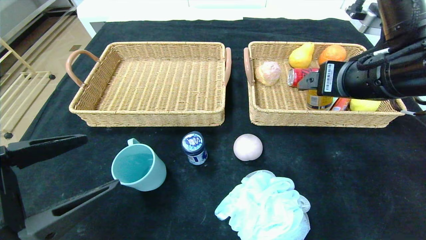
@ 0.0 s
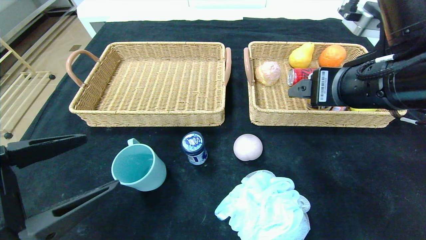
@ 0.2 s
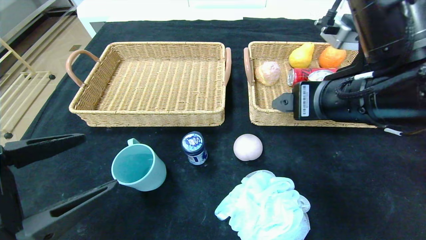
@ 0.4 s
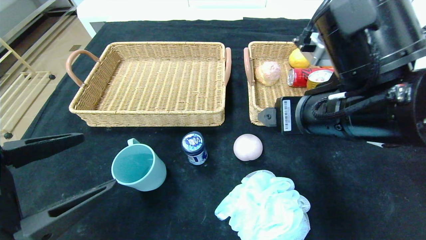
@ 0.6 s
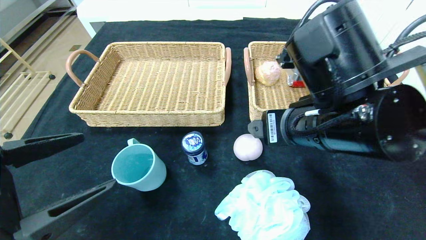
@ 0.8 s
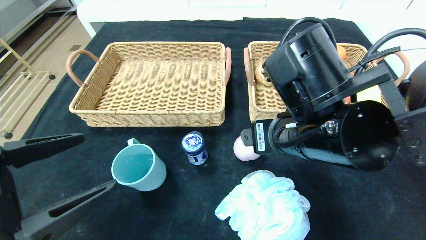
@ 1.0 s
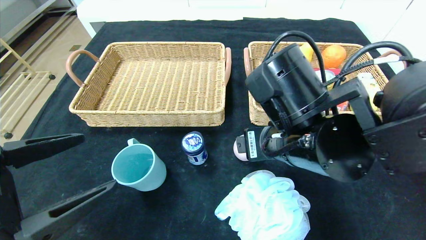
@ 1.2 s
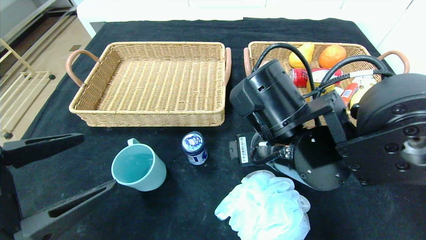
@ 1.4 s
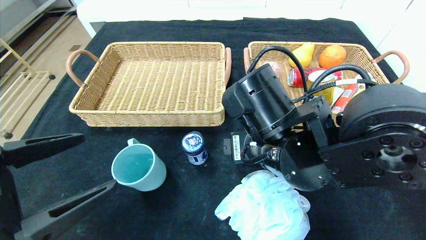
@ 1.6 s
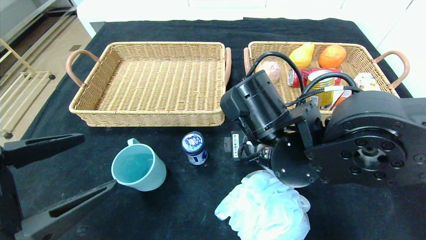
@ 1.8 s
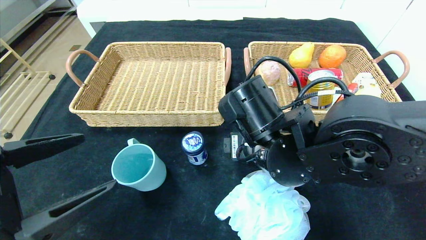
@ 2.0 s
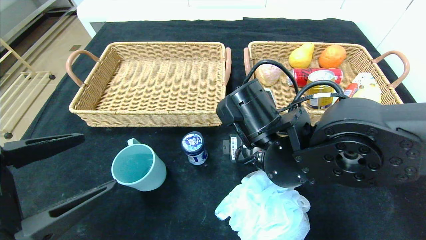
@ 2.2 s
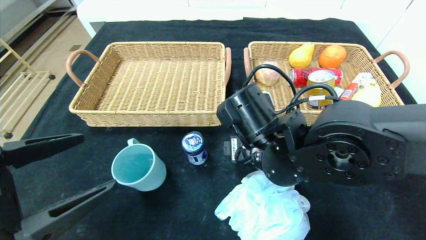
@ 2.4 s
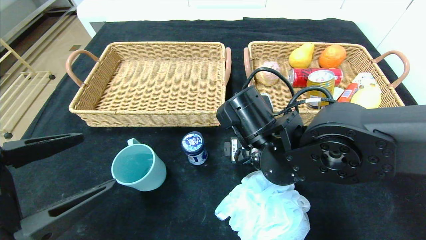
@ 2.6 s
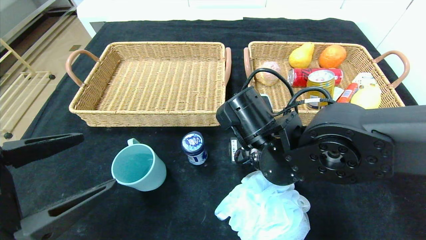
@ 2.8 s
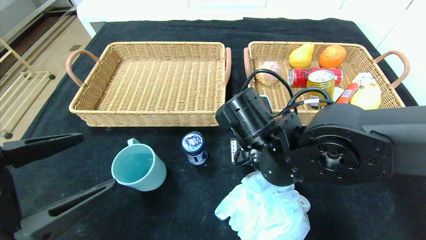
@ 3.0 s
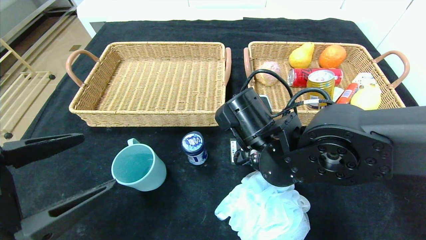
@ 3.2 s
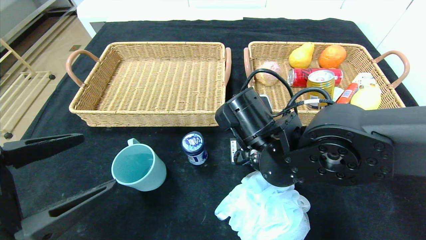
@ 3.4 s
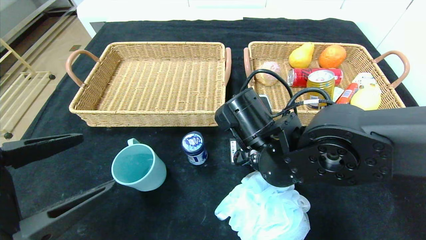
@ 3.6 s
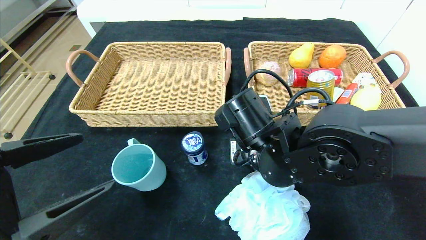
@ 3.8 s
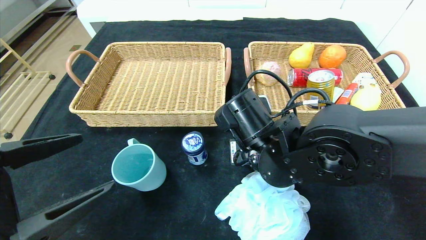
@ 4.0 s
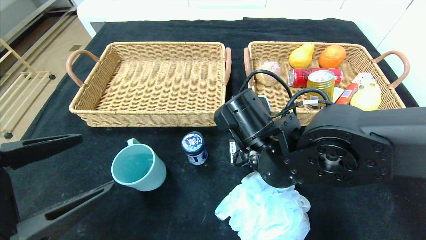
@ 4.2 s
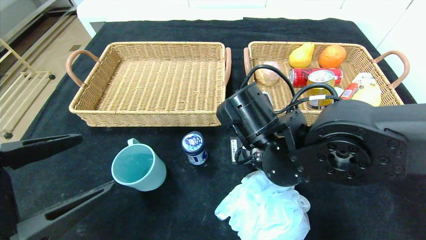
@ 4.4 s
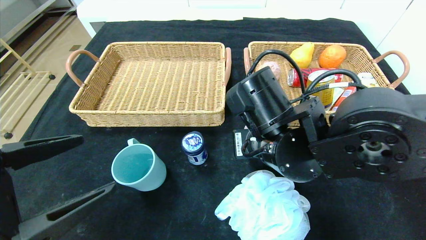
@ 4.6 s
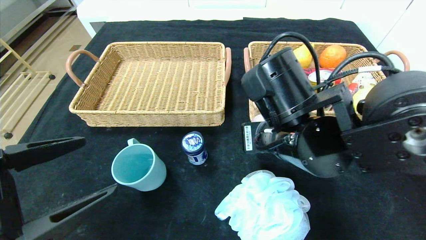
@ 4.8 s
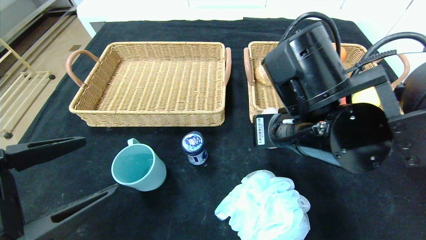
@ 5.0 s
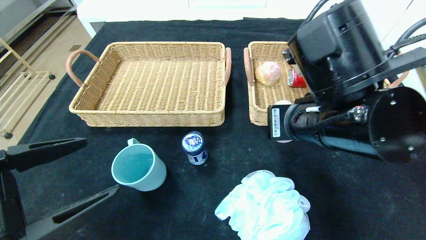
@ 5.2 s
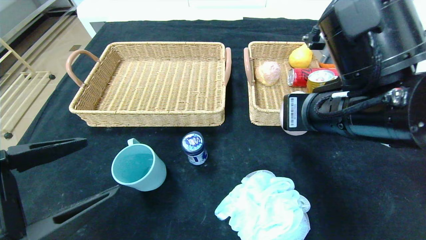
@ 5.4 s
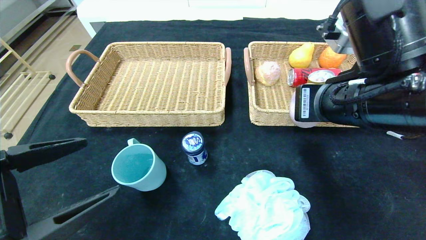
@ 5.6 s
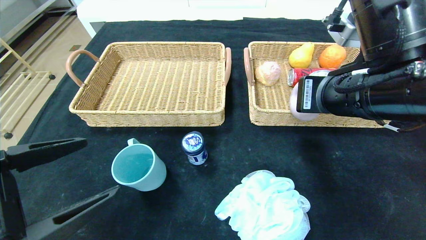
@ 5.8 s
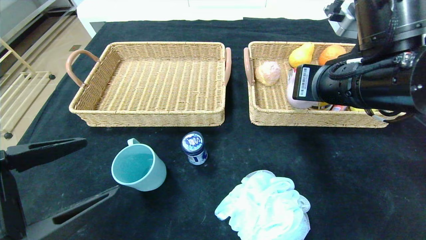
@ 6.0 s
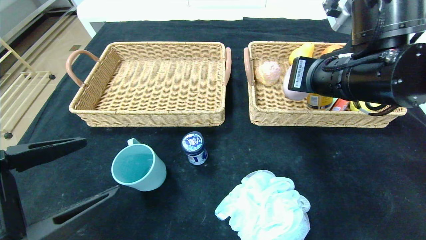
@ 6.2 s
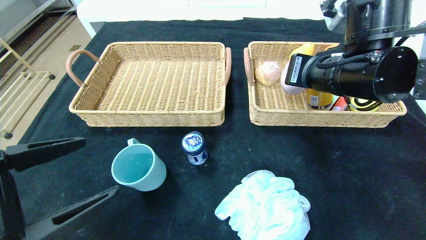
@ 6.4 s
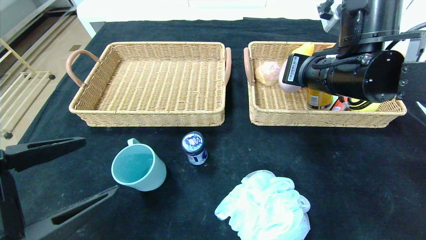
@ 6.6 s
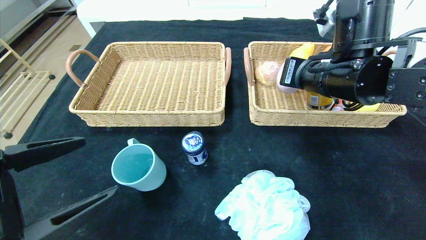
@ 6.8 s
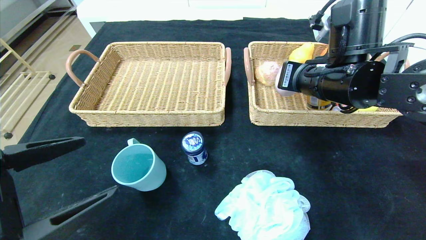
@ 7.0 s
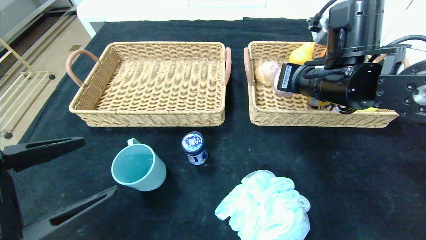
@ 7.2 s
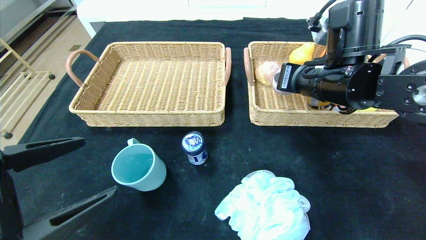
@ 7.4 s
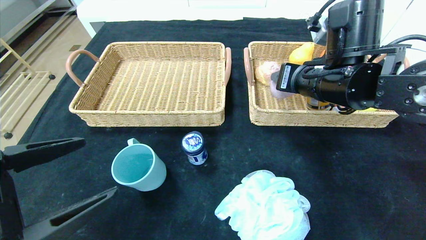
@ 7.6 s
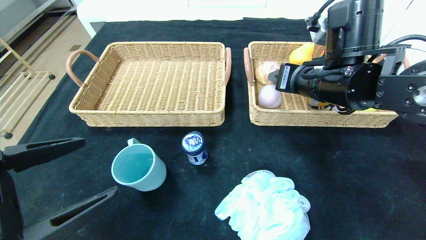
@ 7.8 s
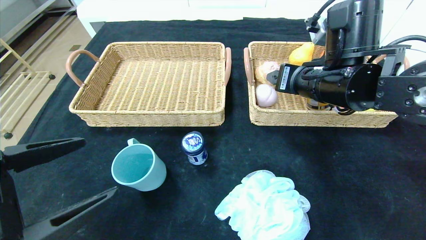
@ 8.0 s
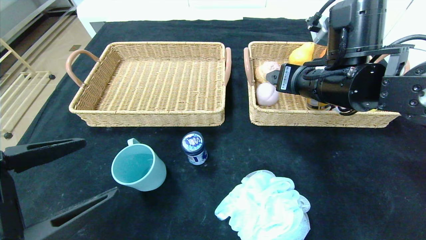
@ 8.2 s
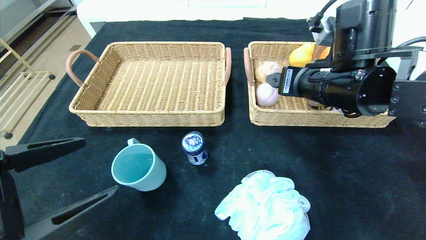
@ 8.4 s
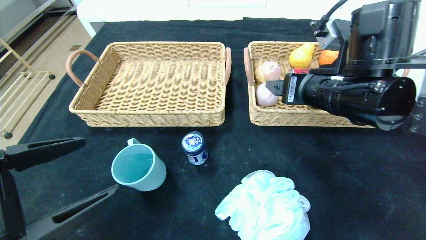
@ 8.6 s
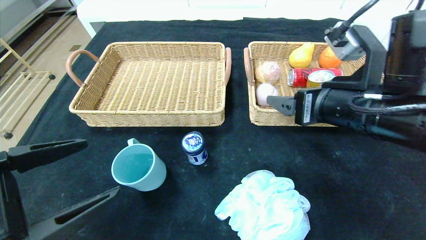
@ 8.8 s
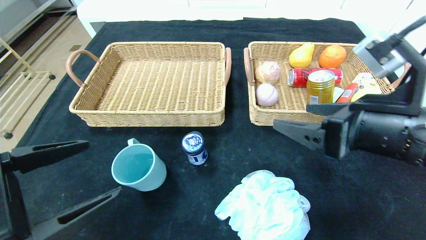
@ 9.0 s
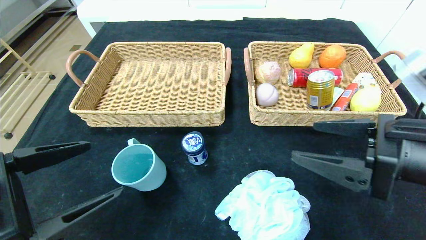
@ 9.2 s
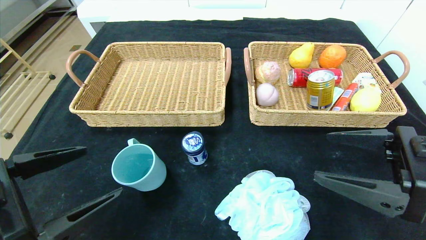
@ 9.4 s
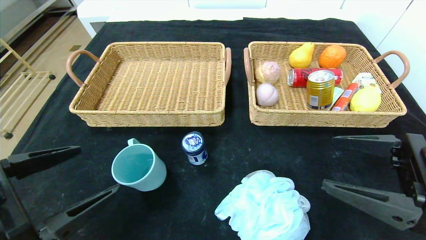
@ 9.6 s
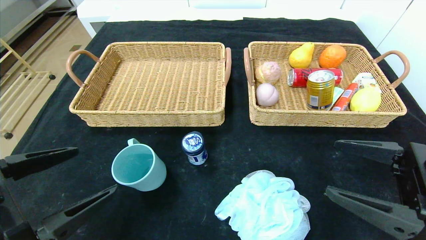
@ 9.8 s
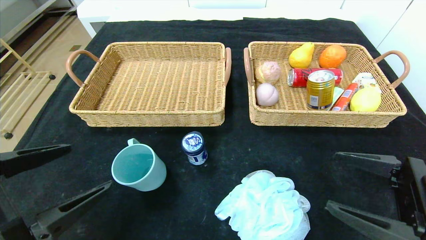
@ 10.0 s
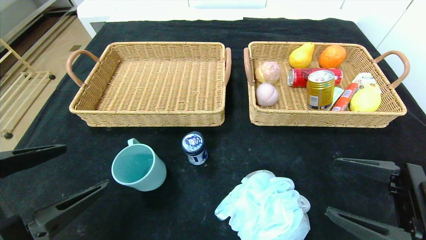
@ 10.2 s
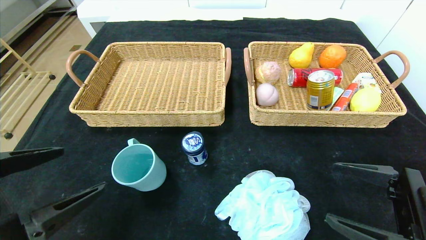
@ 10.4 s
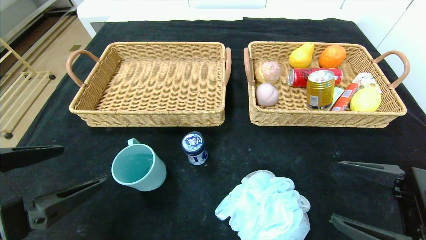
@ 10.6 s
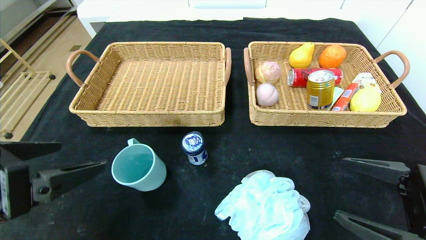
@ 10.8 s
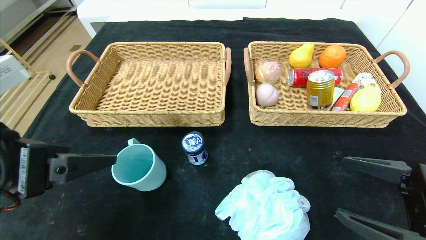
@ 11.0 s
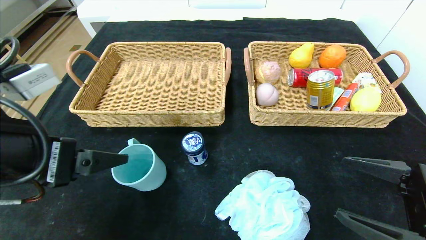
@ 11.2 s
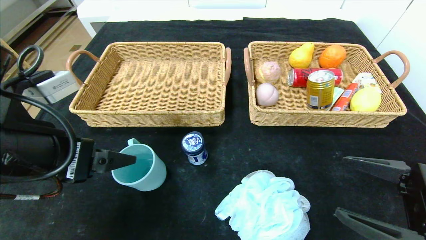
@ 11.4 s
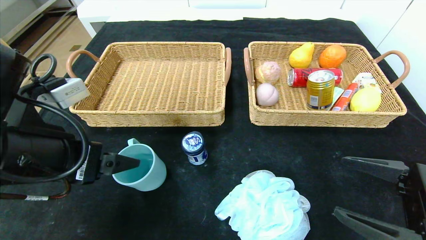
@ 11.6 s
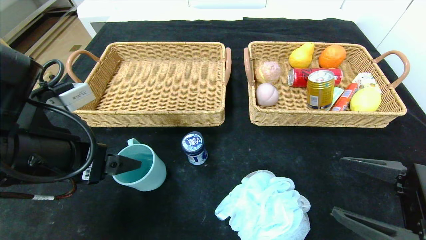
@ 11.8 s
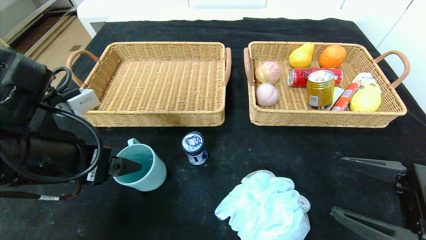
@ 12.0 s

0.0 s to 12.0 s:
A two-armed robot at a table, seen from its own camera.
Step, 0.0 to 7.6 s: Grasp the peach and put it in the right basket.
0.0 to 1.6 s: The right gripper is displaced to the left and downward by some 15 cm.
1.6 to 3.0 s: The right gripper closes up.
3.0 to 4.4 s: The right gripper closes its fingers.
4.4 to 6.0 s: The right gripper travels upward and to the right by roughly 15 cm.
6.0 to 7.6 s: The right gripper travels forward by some 5 cm, and opens up.
7.6 to 9.0 s: The right gripper travels backward by some 10 cm.
9.0 to 10.4 s: The right gripper goes some 10 cm downward, to the right and backward.
10.4 to 12.0 s: The left gripper shifts some 10 cm forward.

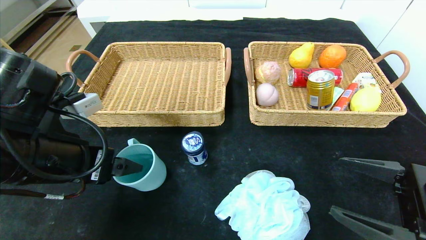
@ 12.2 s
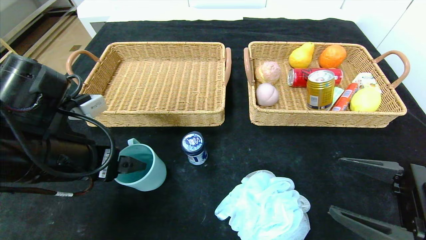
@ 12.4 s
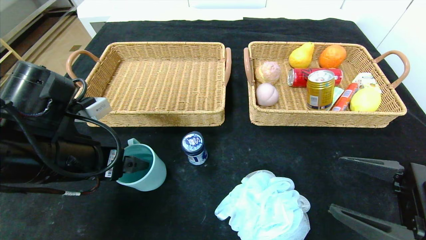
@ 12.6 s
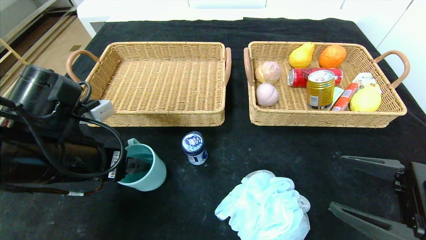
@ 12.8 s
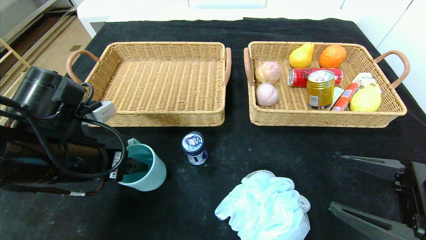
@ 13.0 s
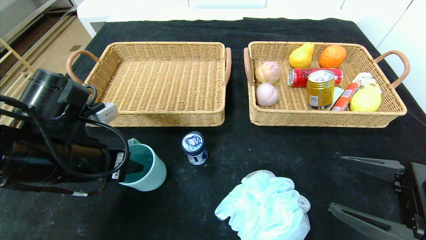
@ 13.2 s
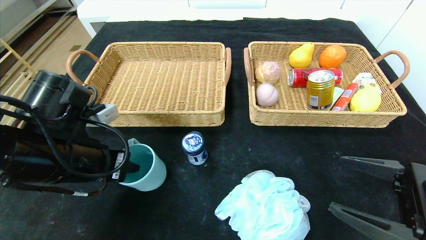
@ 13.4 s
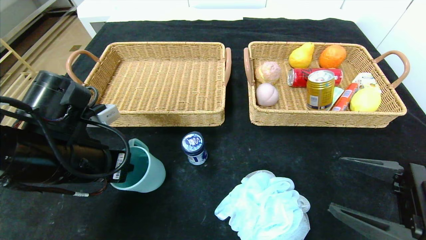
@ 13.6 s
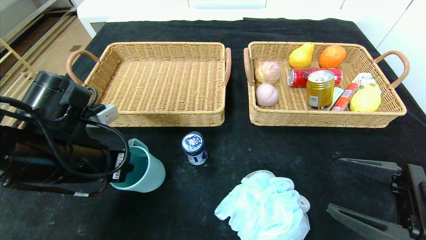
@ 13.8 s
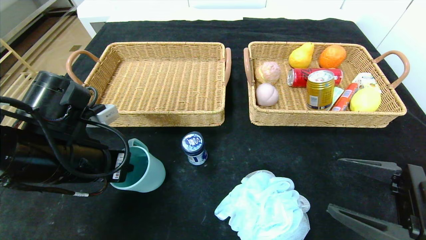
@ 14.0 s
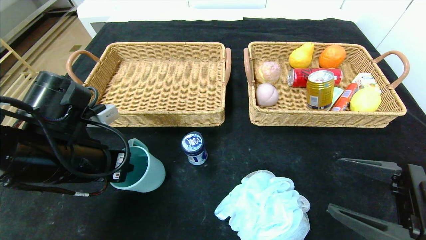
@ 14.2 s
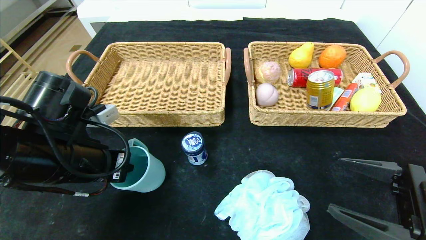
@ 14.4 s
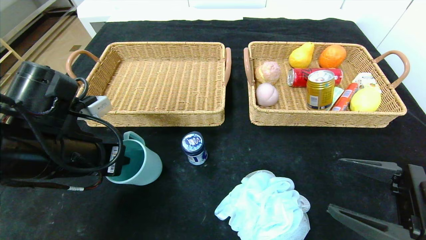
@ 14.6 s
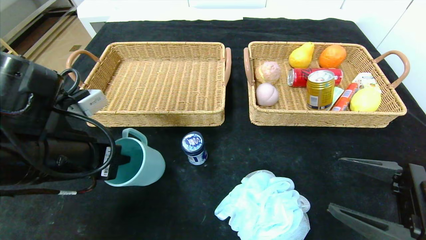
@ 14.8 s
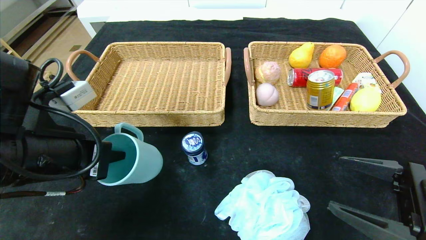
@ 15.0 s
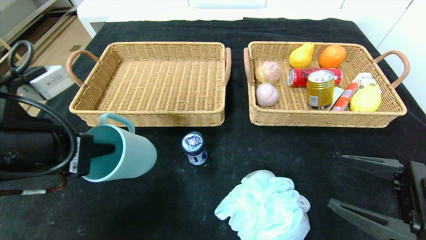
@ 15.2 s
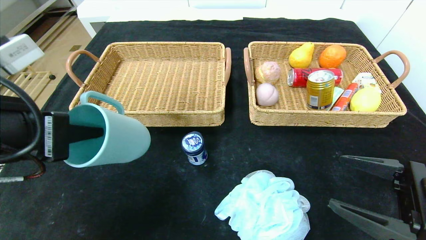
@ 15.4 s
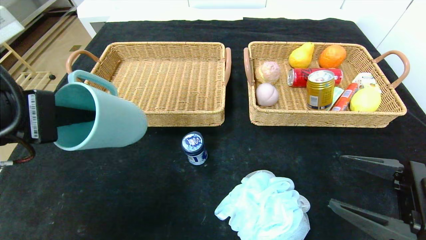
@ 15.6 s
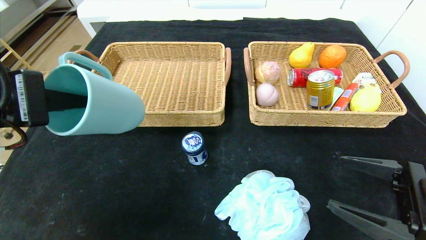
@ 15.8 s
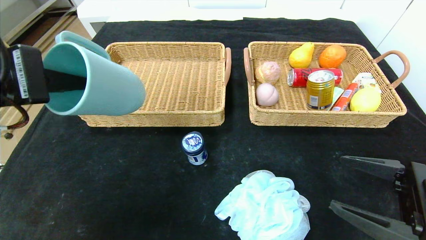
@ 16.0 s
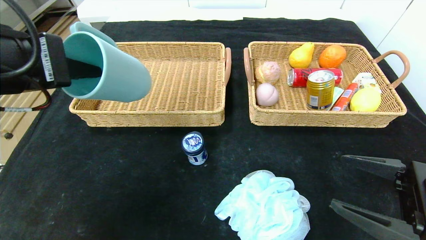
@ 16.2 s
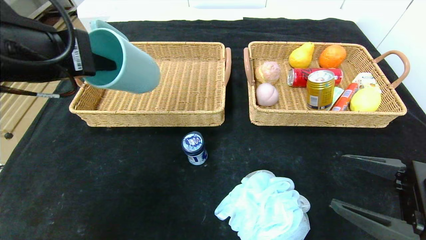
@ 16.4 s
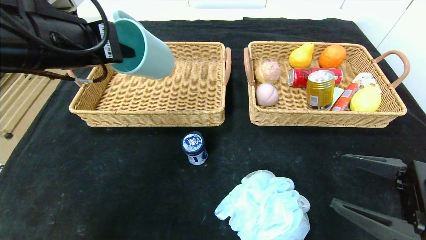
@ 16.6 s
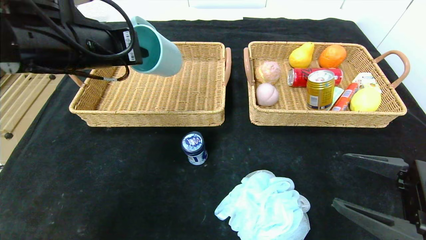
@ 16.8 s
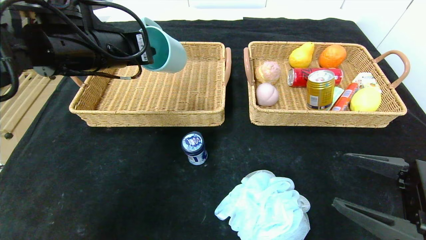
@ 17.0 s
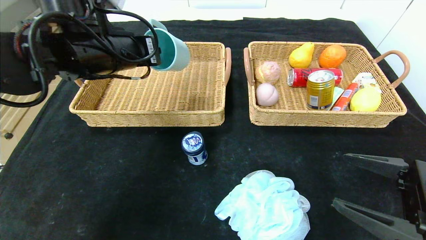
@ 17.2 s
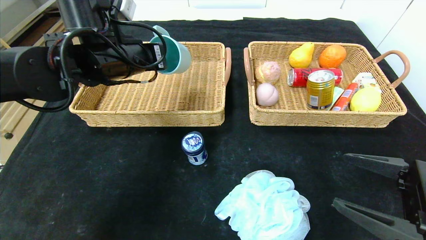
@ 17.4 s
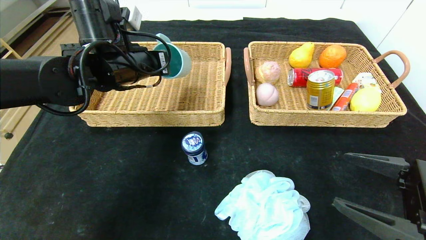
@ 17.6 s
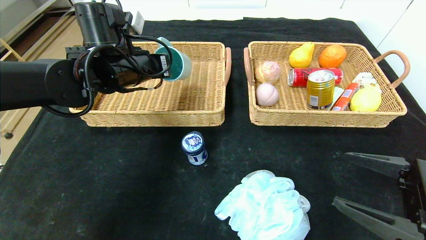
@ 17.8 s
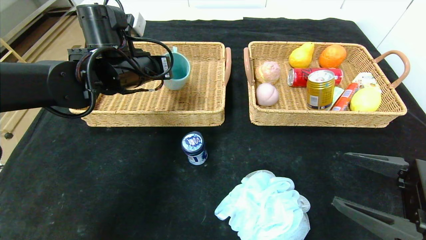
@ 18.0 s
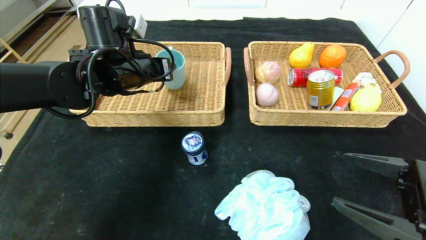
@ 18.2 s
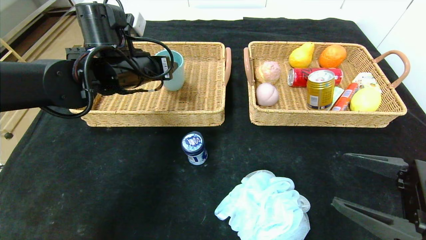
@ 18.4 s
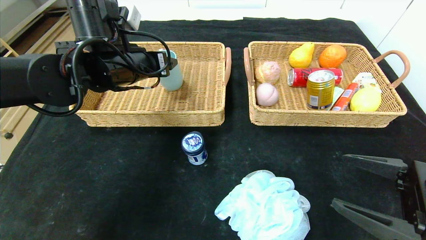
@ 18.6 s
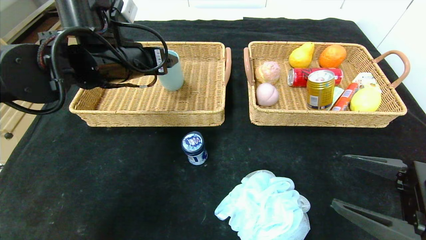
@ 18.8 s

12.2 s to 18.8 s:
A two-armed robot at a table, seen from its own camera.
Step, 12.2 to 18.4 s: Grasp the blue cup and put it in the left basket.
12.2 to 13.8 s: The left gripper closes.
13.8 to 15.4 s: The left gripper shifts some 10 cm upward and backward.
15.4 to 17.2 s: The left gripper is displaced forward by approximately 20 cm.
17.2 to 18.8 s: The left gripper opens.
